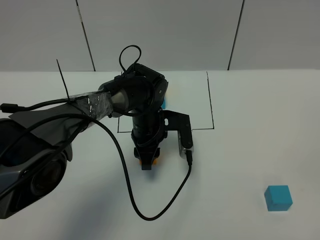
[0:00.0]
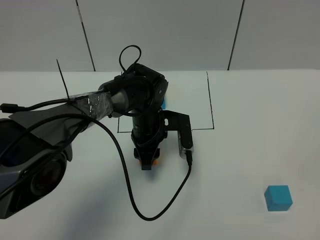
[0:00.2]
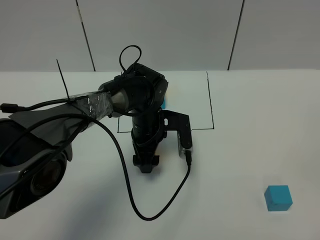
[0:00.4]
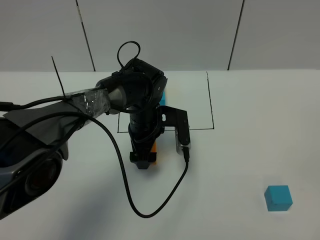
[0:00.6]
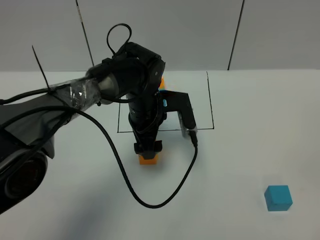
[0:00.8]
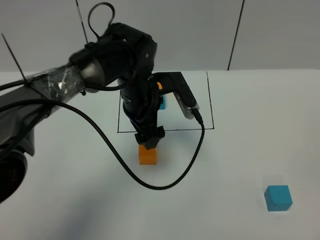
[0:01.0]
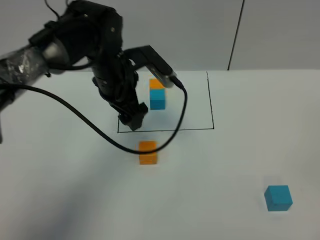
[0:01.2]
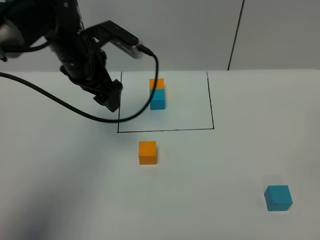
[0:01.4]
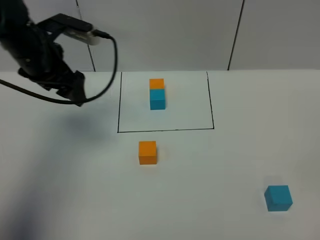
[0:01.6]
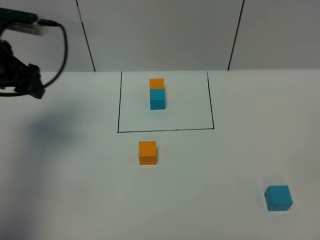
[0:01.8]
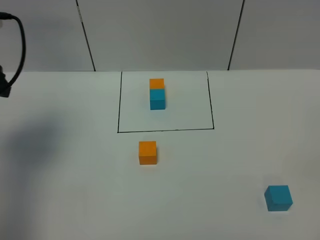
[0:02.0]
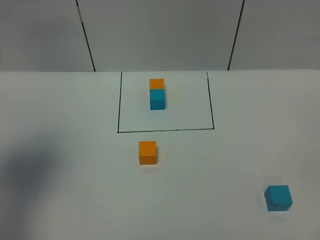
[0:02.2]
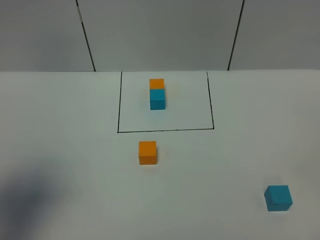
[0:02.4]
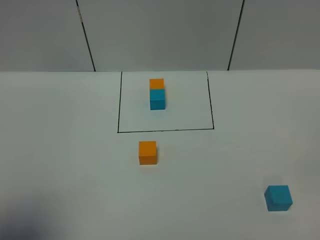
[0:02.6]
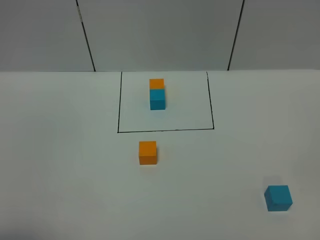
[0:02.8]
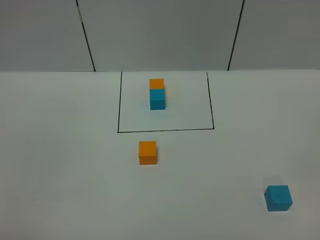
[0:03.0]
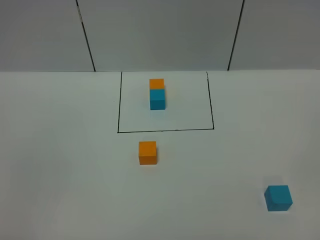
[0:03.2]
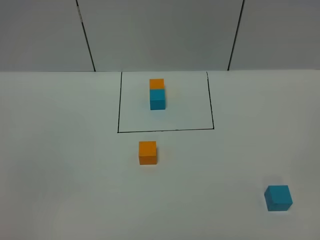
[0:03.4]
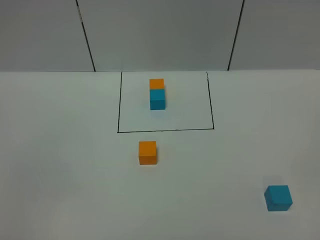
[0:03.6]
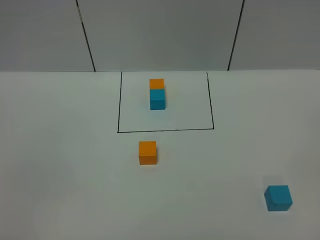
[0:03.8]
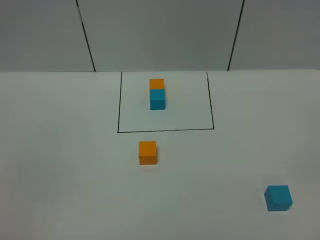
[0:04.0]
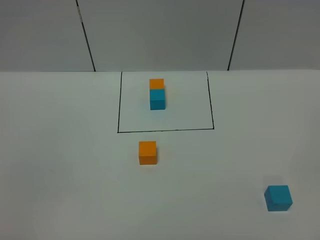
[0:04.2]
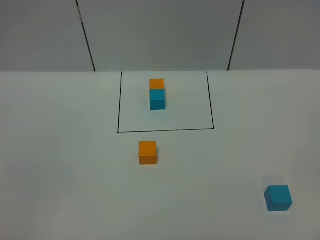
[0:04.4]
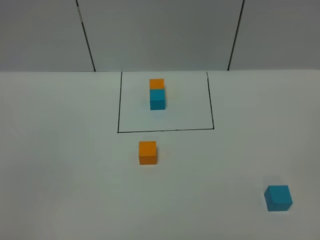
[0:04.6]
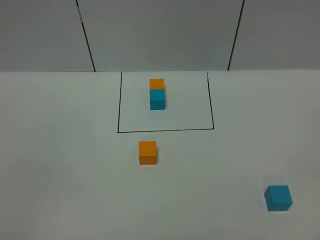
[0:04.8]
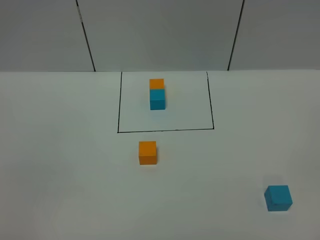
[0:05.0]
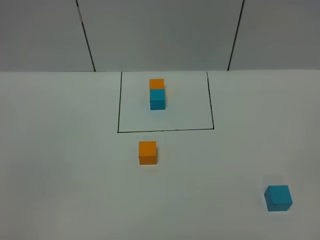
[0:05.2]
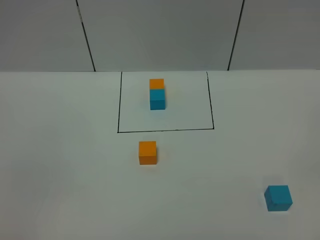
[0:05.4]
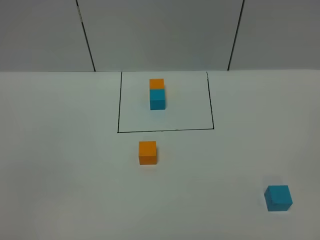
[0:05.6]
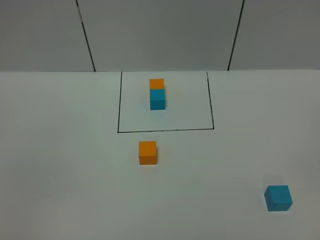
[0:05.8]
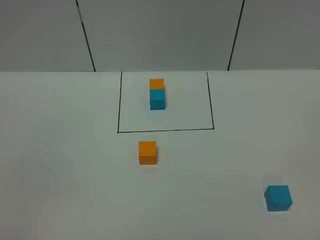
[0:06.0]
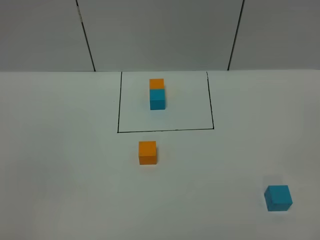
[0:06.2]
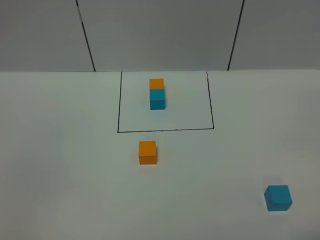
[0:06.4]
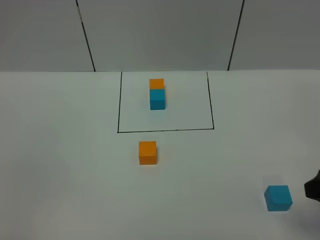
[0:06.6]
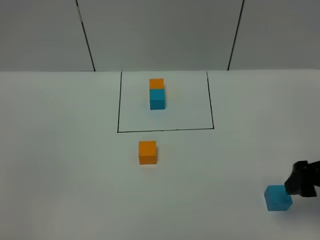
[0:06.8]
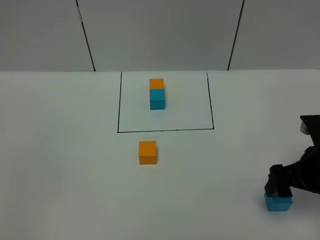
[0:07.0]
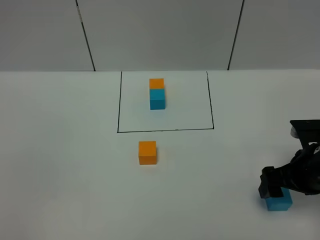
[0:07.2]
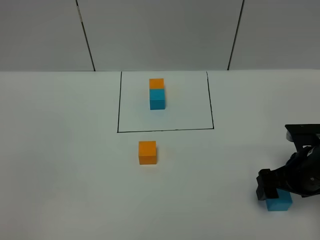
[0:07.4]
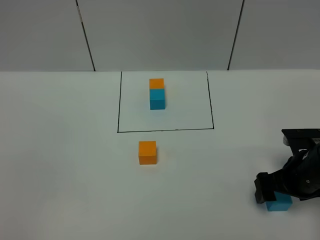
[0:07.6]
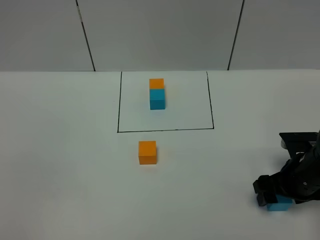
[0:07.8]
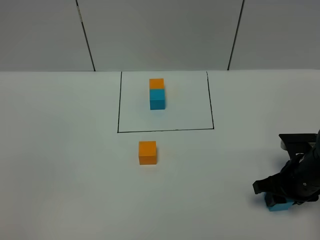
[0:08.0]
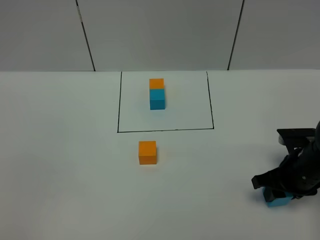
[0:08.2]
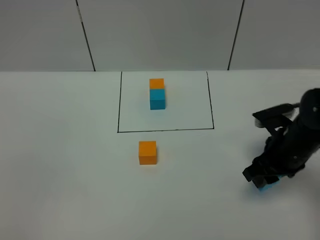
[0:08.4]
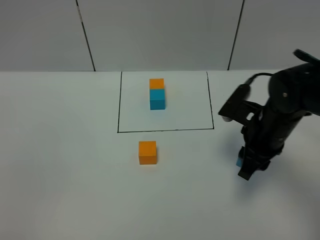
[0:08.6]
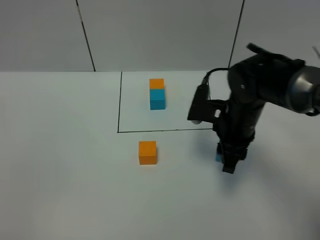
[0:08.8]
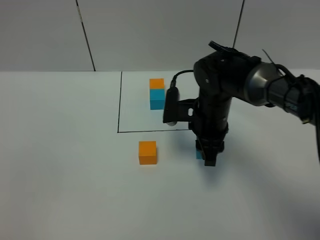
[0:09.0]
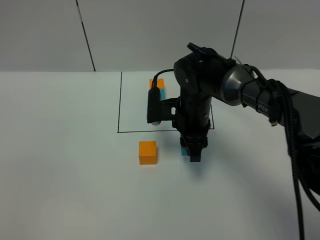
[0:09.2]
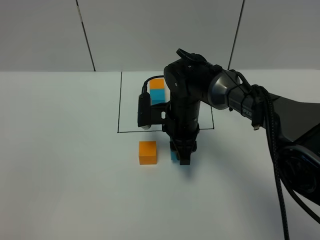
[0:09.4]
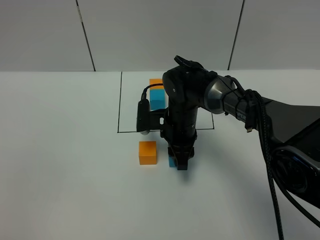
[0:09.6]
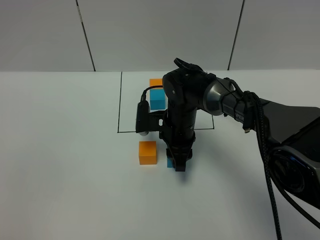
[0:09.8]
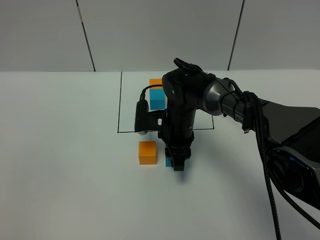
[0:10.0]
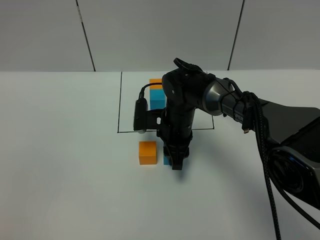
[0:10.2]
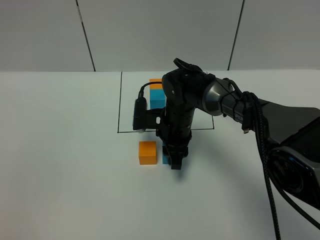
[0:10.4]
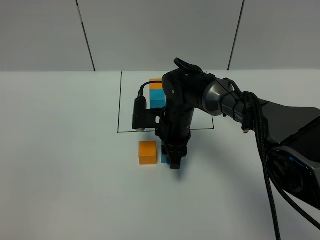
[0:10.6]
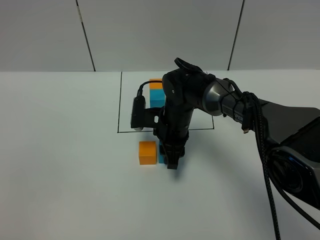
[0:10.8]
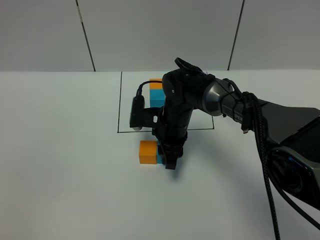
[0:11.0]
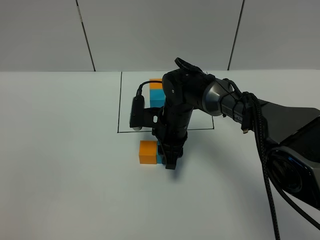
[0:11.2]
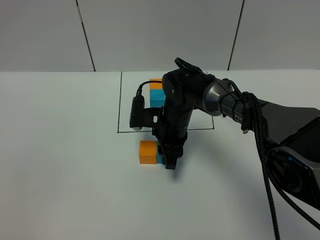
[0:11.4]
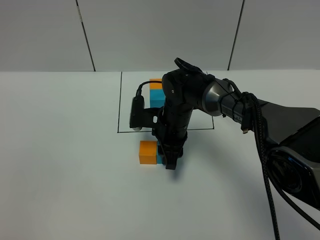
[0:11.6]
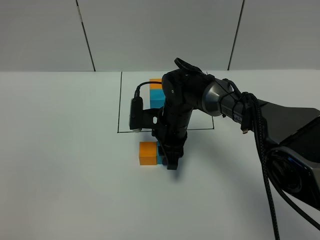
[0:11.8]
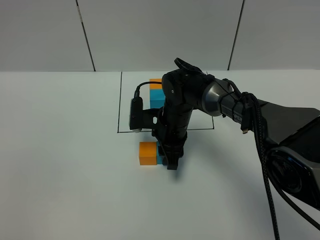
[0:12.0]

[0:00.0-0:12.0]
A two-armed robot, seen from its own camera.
Task of the whole recording: According to the building block template in front, assemble the scattered blocks together.
0:00.0 to 0:01.6: The left gripper heads to the left and upward, covering roughly 25 cm, and opens.
0:01.6 to 0:03.0: The left gripper moves backward, approximately 40 cm.
0:06.0 to 0:07.6: The right gripper heads forward and downward, covering some 30 cm.
0:07.6 to 0:09.0: The right gripper goes some 20 cm to the left and forward, and closes up.
0:09.0 to 0:10.4: The right gripper is displaced downward and to the left by roughly 10 cm.
0:10.4 to 0:12.0: Both grippers stay about where they are.

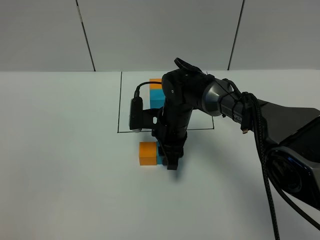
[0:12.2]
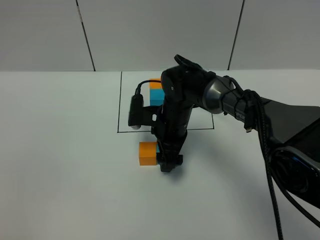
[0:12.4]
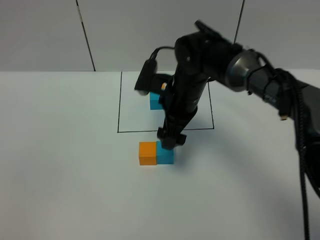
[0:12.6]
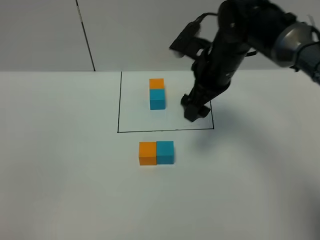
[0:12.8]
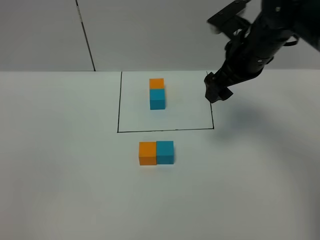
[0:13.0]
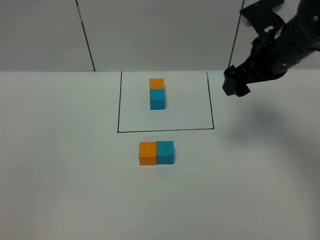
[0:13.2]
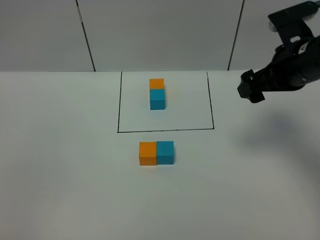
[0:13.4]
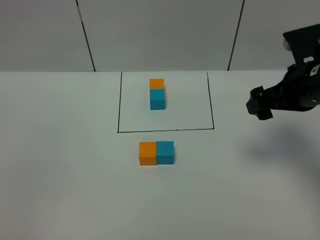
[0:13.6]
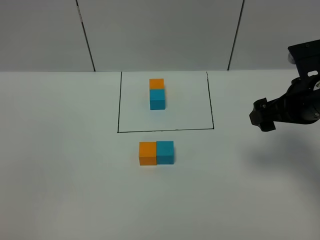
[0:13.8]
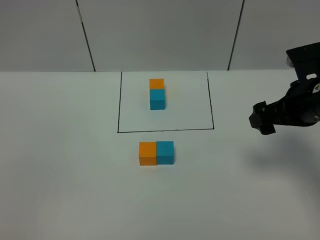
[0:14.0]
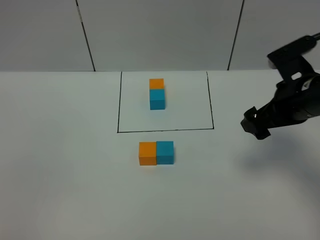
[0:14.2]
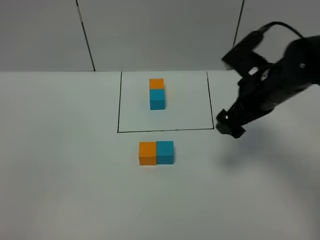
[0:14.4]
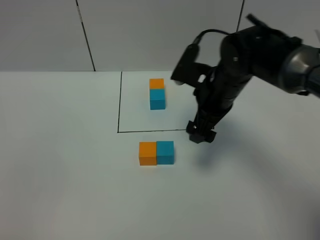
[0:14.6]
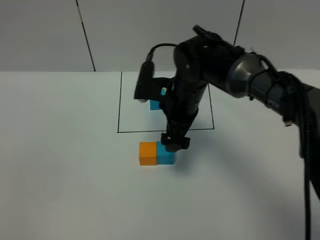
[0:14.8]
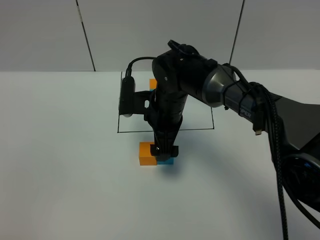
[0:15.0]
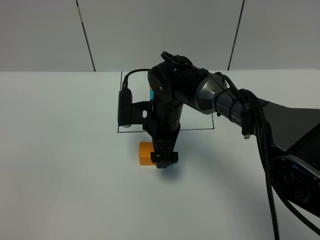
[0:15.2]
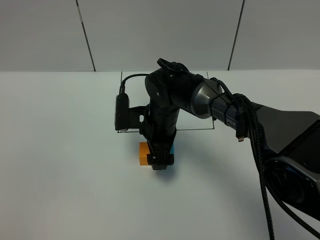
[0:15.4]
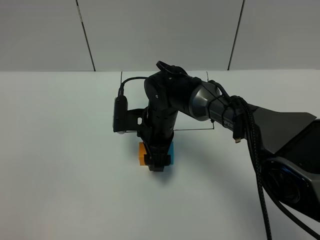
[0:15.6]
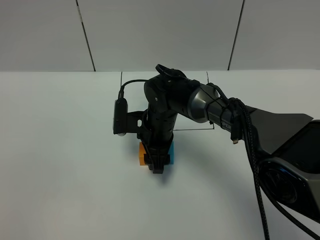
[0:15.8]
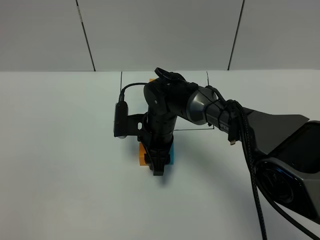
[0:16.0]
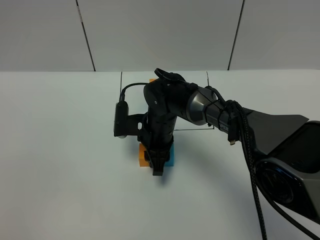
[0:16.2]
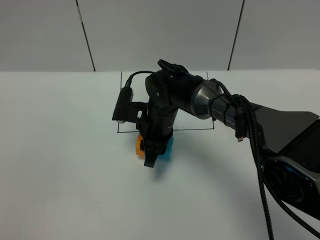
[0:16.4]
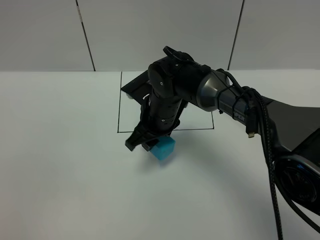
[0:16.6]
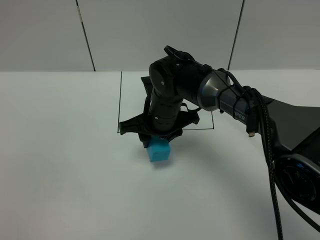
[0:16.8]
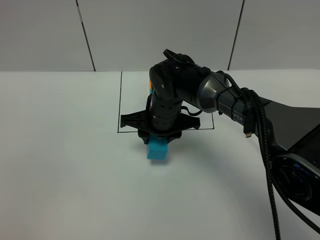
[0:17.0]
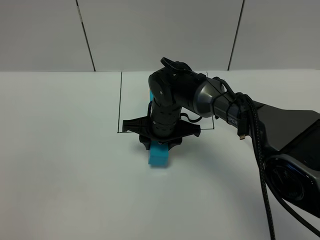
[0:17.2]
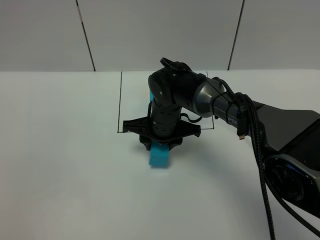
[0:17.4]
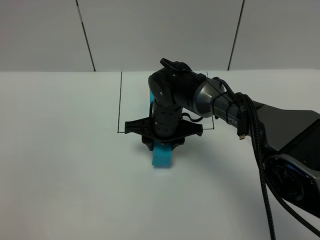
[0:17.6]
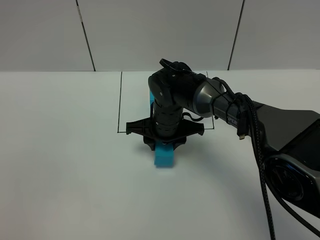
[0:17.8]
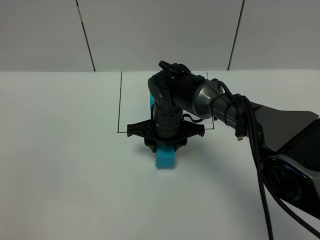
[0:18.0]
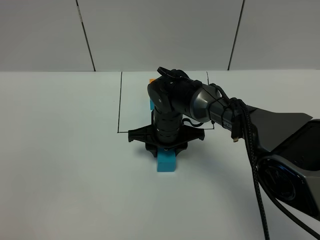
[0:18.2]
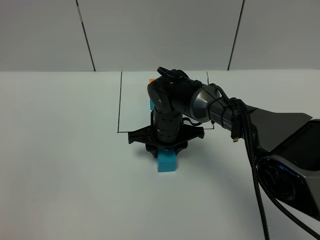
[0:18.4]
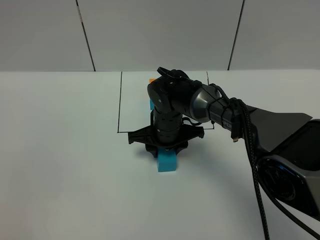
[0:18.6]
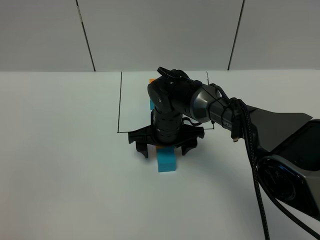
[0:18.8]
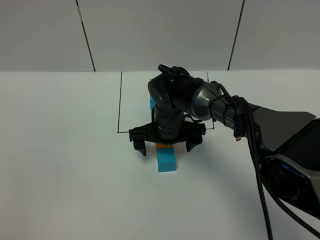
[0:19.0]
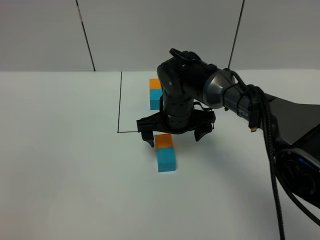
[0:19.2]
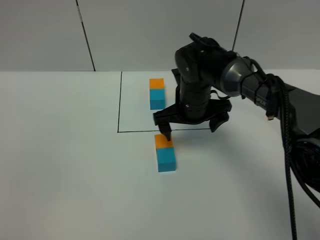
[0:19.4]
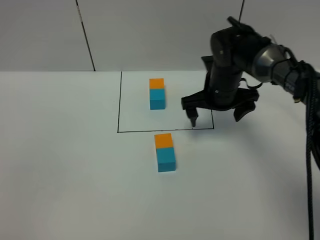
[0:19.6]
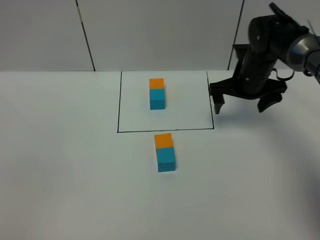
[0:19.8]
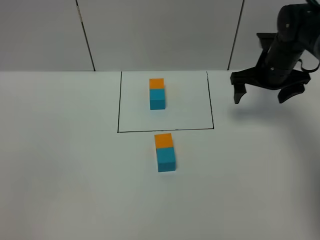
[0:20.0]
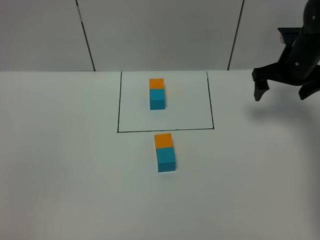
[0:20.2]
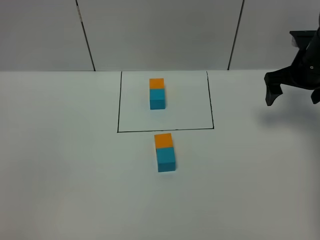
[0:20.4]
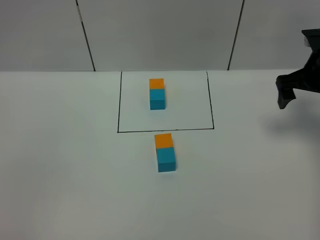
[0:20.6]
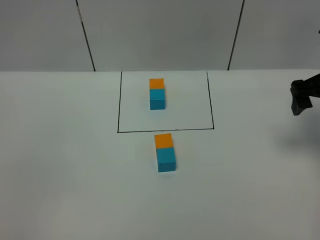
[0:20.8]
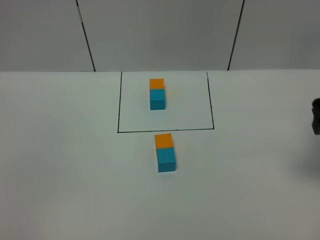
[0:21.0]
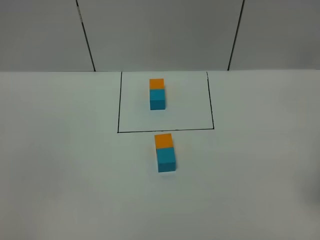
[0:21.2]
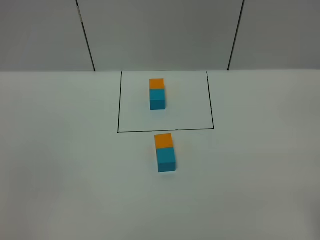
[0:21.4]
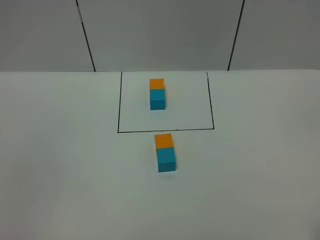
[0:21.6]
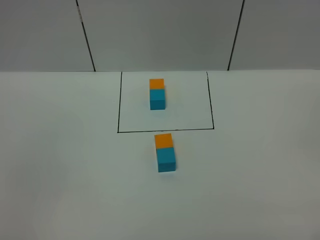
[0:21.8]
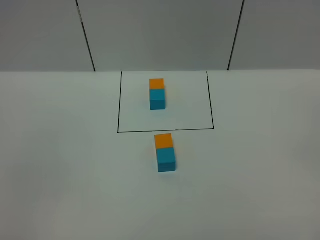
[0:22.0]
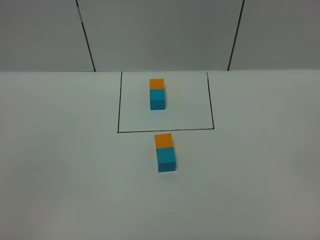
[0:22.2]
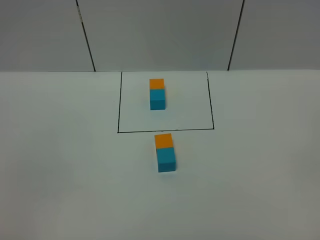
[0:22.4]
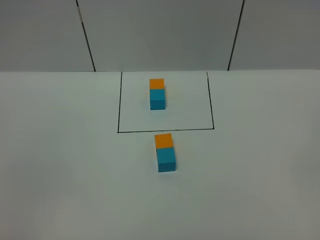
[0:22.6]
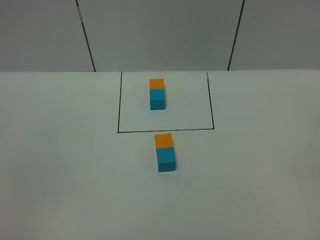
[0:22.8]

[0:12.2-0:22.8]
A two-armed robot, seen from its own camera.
Task of the whole recording: According to the building block template in front, assemble the scattered blocks together.
Step, 0:12.6 to 0:19.0: Adjust the pose of the building blocks.
0:12.2 to 0:13.8: The right gripper goes some 25 cm to the right and upward, and opens.
0:13.8 to 0:15.2: The right gripper travels to the left and downward by some 25 cm.
0:15.2 to 0:16.8: The right gripper closes.
0:16.8 to 0:18.2: There are only small adjustments of the grippers.
0:18.2 to 0:19.8: The right gripper goes some 20 cm to the right, and opens.
0:19.8 to 0:21.2: The right gripper shifts approximately 30 cm backward, upward and to the right.
